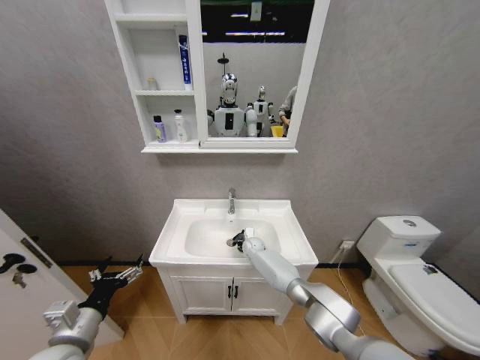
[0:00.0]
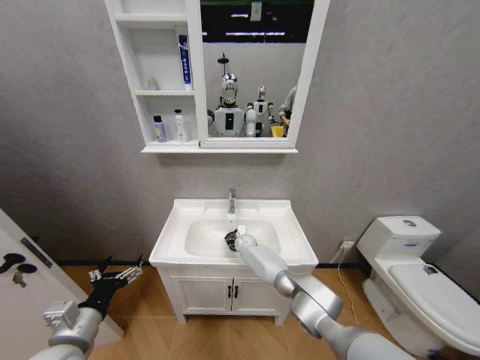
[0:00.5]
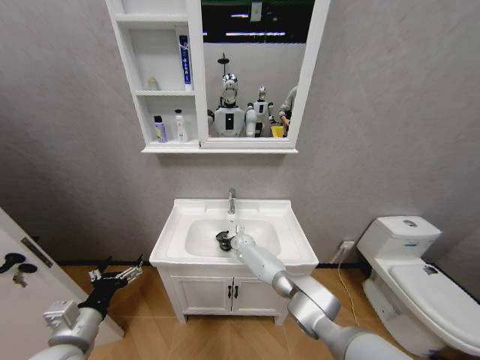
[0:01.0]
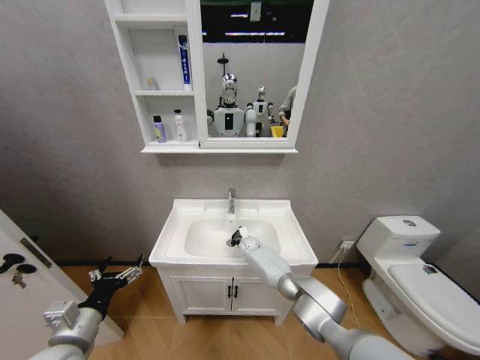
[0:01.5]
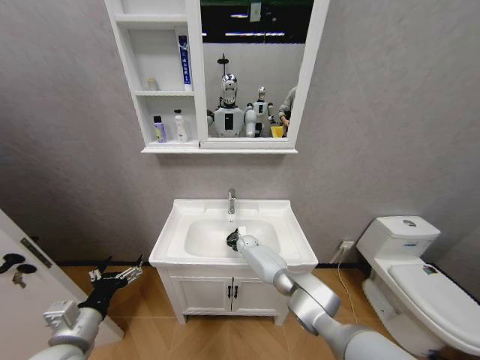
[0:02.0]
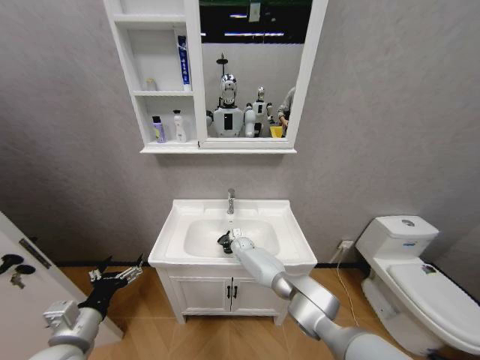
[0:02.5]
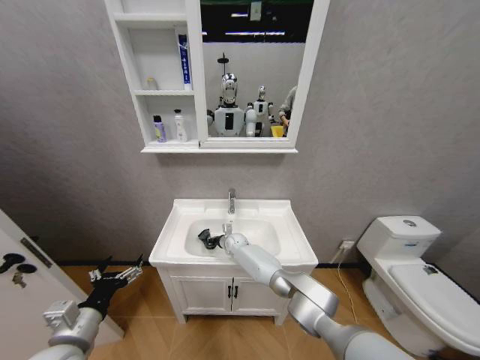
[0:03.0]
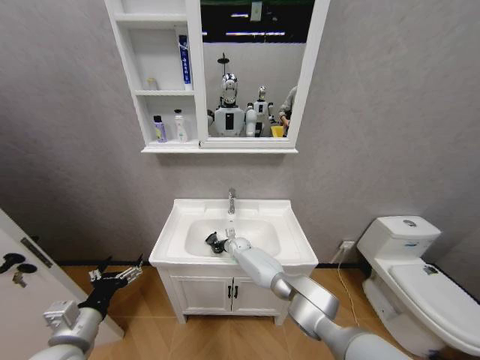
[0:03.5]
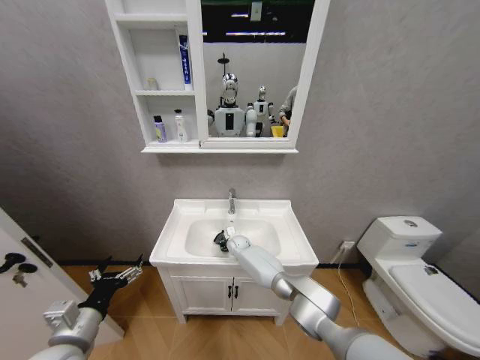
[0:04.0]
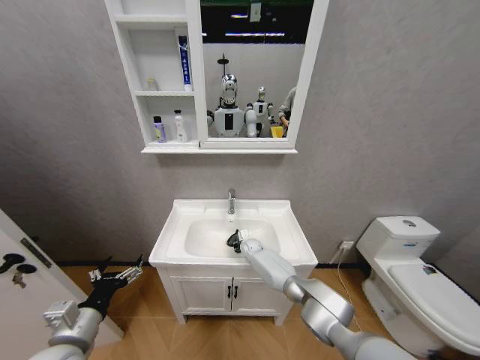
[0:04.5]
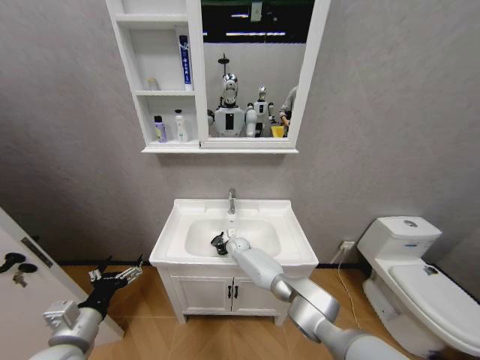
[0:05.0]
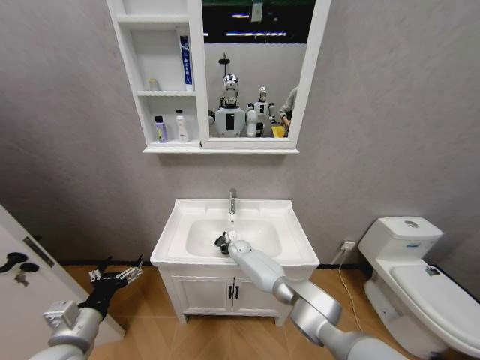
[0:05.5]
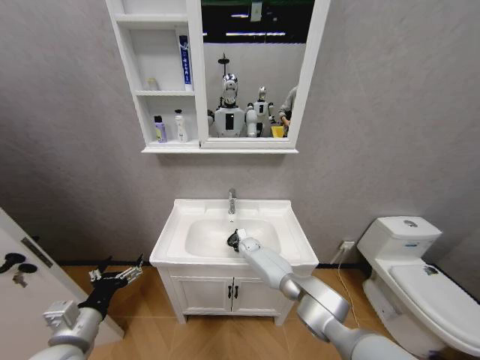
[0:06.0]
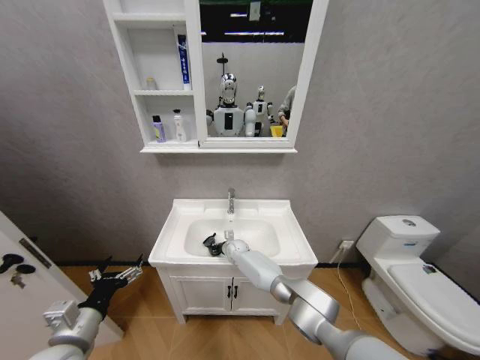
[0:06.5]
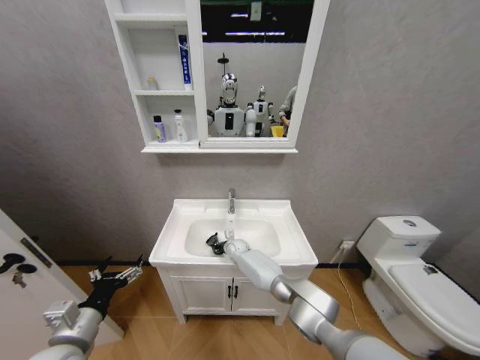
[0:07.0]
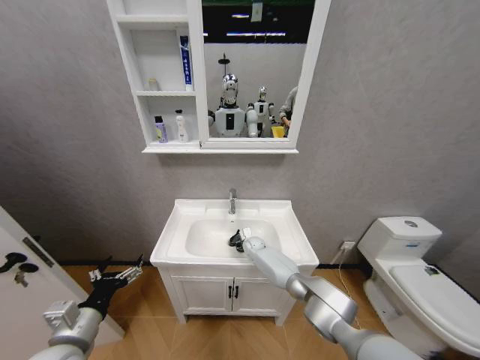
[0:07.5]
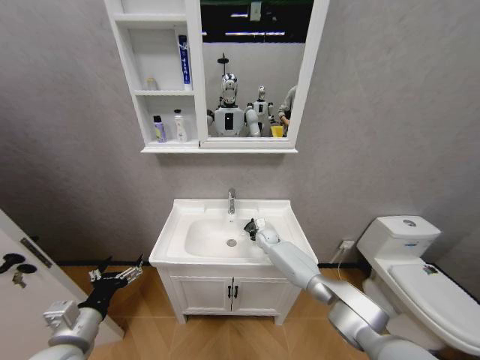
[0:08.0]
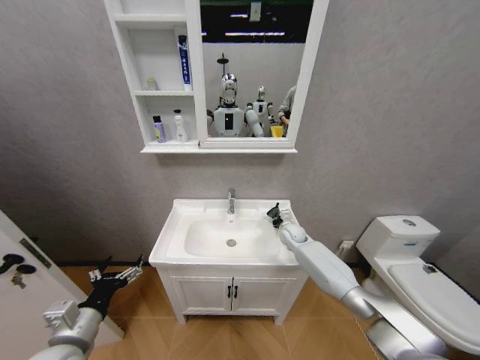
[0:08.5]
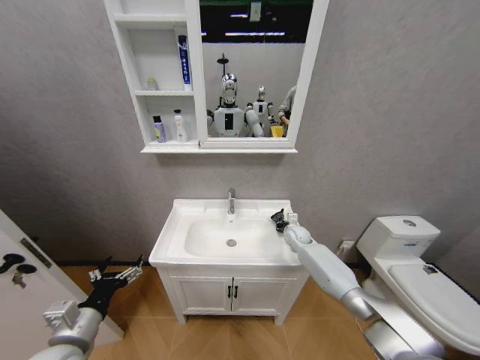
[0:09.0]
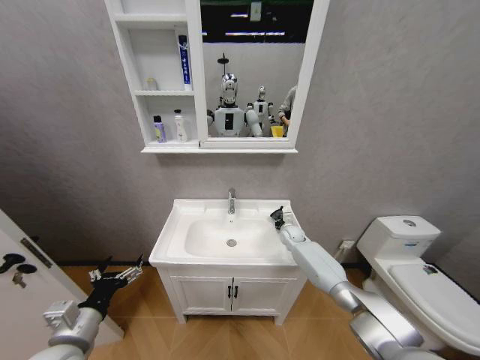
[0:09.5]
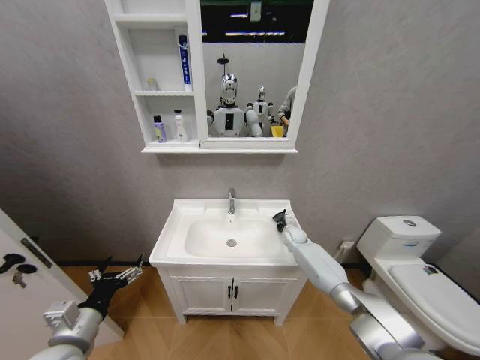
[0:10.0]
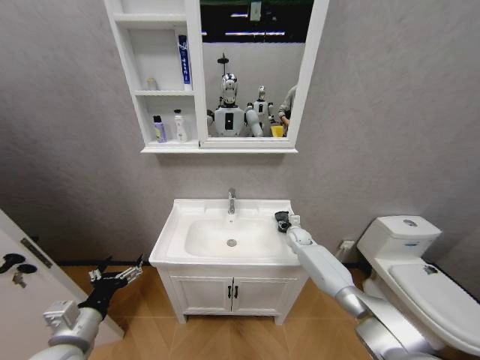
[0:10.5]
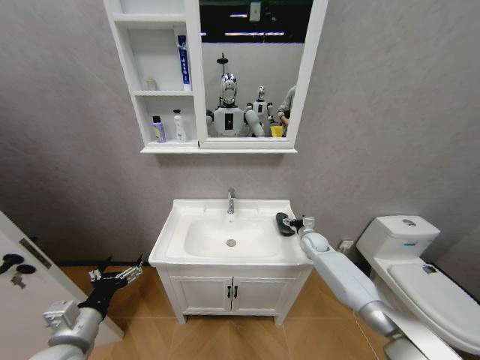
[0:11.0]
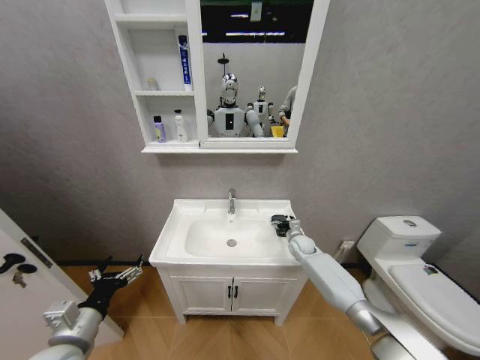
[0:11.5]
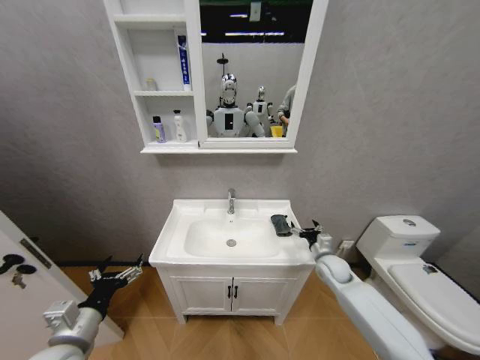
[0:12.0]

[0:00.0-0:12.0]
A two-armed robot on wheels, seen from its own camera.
Task of the whole recording: Move facial cleanser and shampoo from washbasin to cabinet, then wipe washbasin with towel.
0:00.0 to 0:02.0: The grippers move only a little.
0:04.0 to 0:06.0: The right gripper swings left and right, about 5 cm each way, with 2 reversals.
0:06.0 to 0:08.0: The right gripper shifts about 10 cm to the right.
0:08.0 to 0:10.0: The right gripper shifts approximately 10 cm to the right.
0:10.0 to 0:12.0: The right gripper is displaced backward and to the right by approximately 15 cm, and opens.

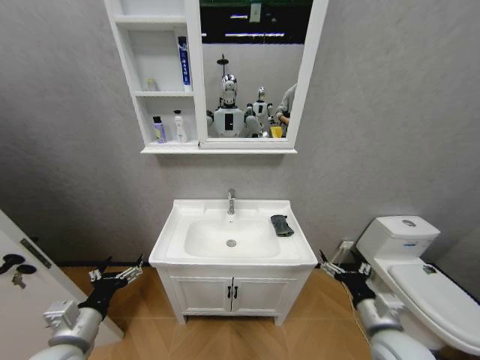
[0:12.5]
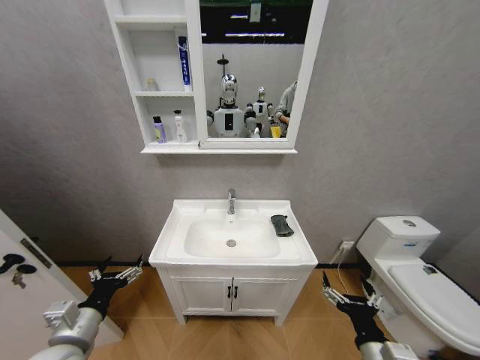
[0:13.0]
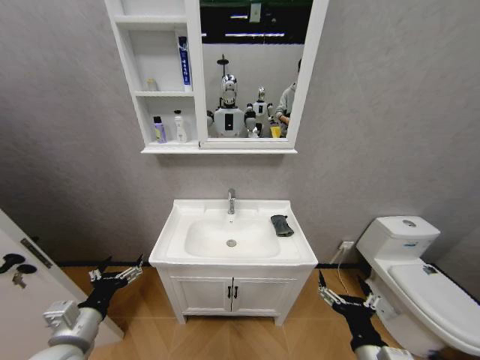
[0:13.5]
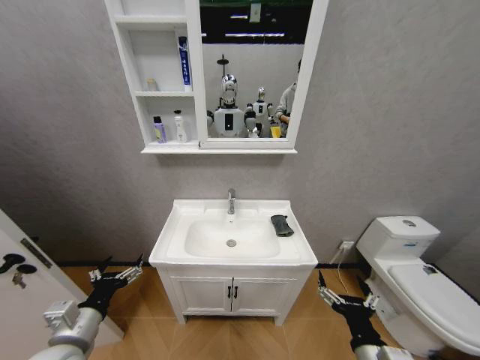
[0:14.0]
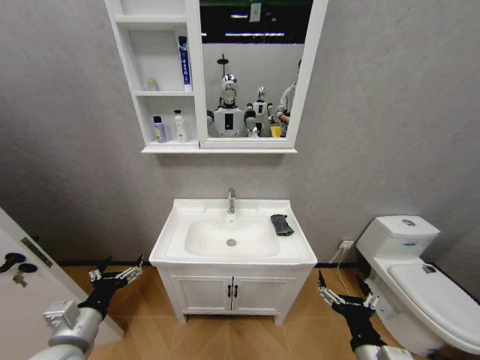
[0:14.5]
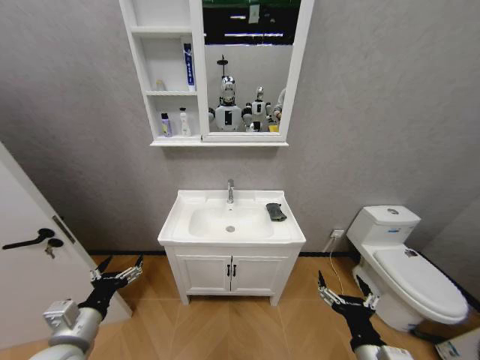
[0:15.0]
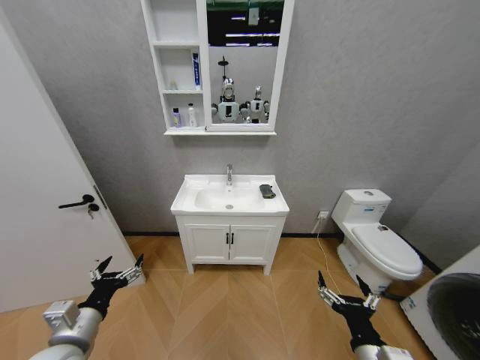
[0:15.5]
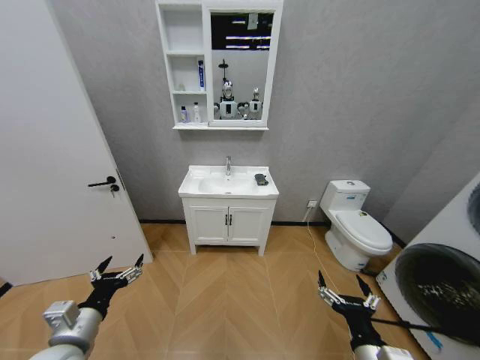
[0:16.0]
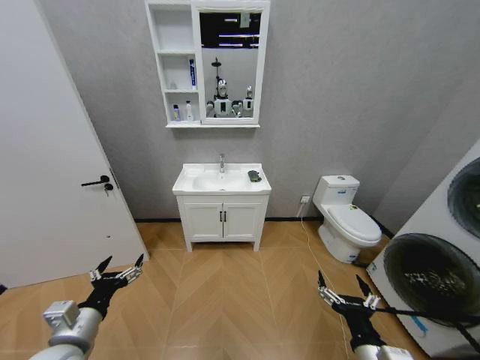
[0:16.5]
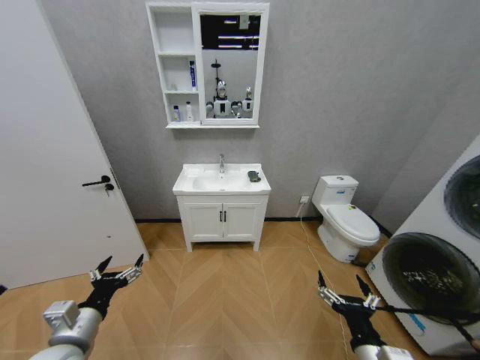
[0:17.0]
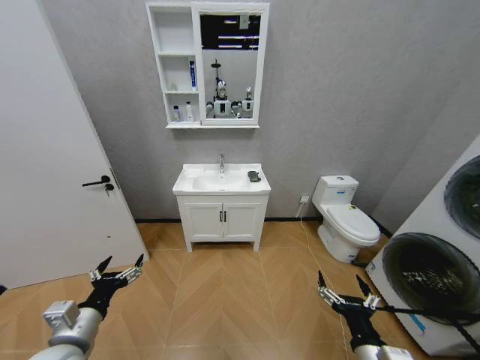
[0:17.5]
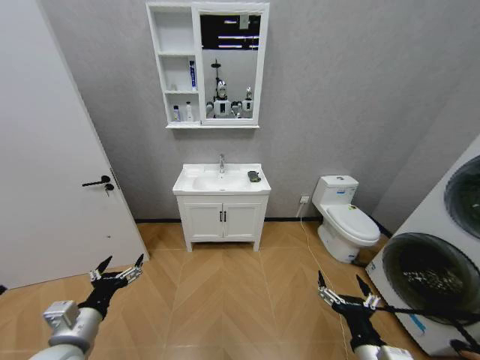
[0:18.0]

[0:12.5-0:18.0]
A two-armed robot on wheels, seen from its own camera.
Task of the whole recording: Move facial cleanser and shampoo from washbasin to cabinet, then wipe washbasin with towel.
0:12.5 to 0:14.5: The right gripper goes some 10 cm to the left and backward.
0:16.0 to 0:18.0: Both grippers stay about where they are.

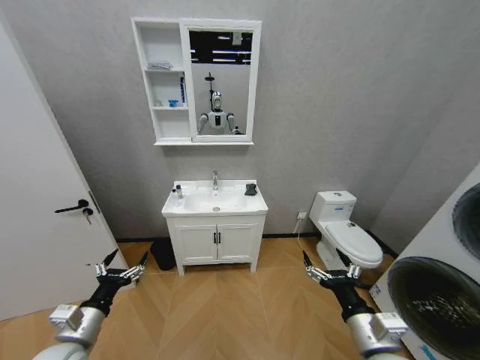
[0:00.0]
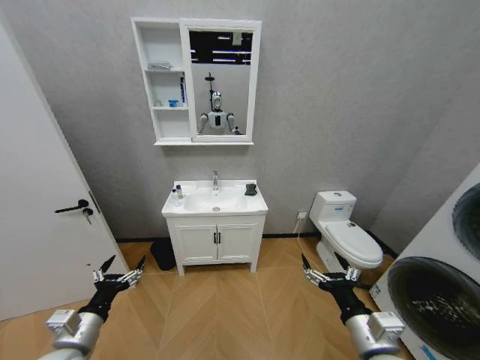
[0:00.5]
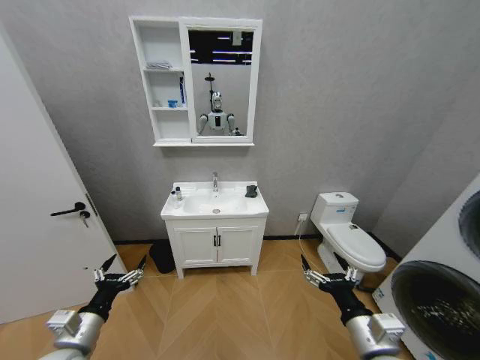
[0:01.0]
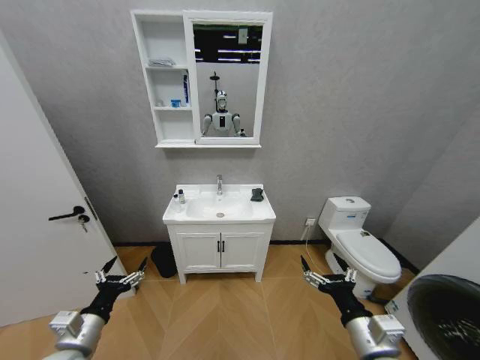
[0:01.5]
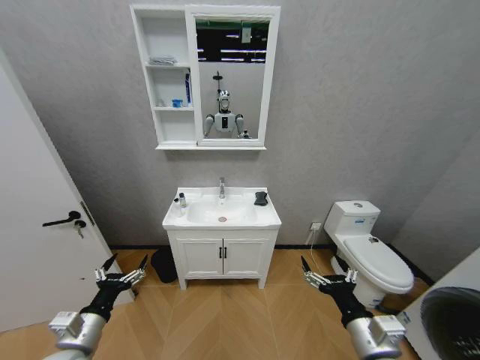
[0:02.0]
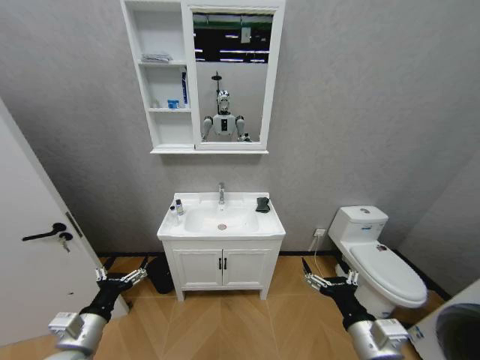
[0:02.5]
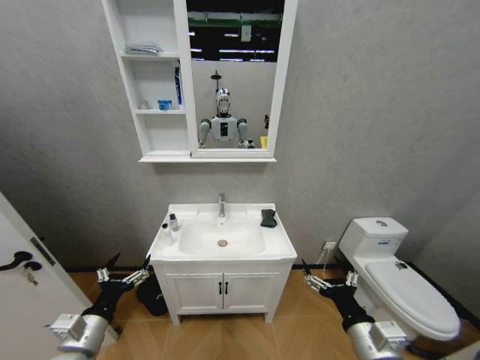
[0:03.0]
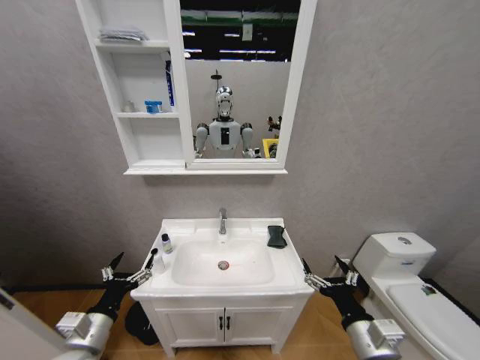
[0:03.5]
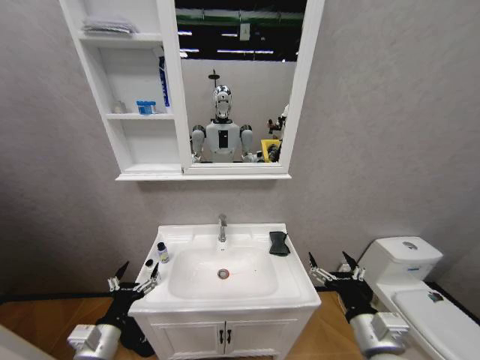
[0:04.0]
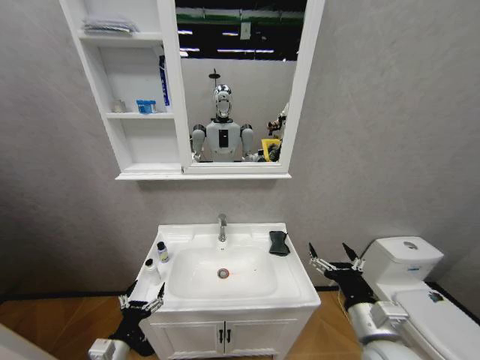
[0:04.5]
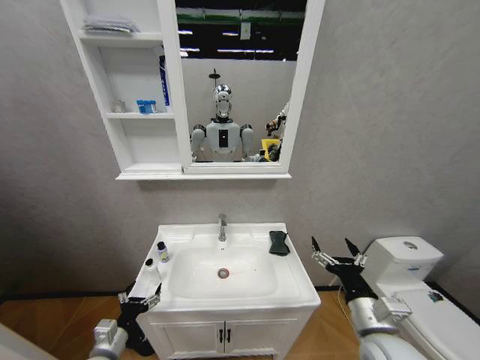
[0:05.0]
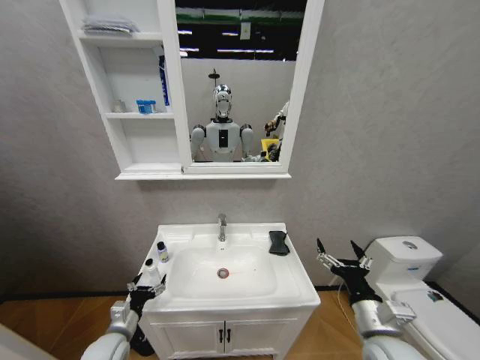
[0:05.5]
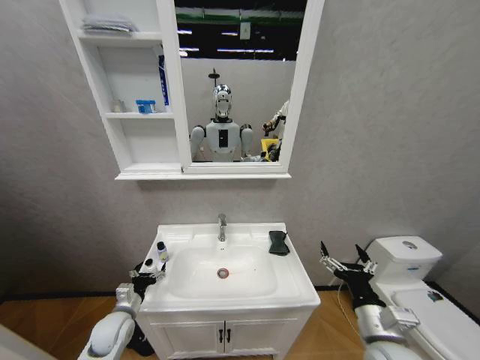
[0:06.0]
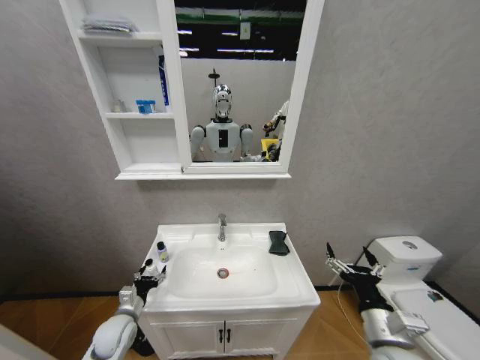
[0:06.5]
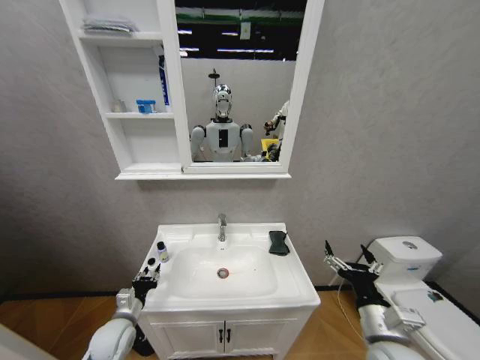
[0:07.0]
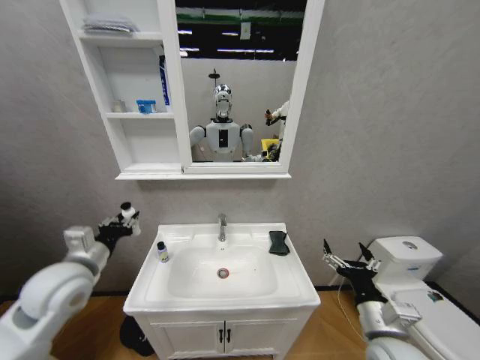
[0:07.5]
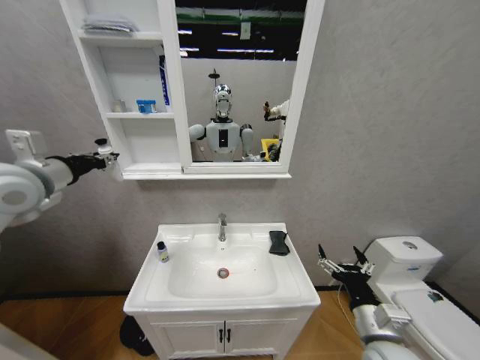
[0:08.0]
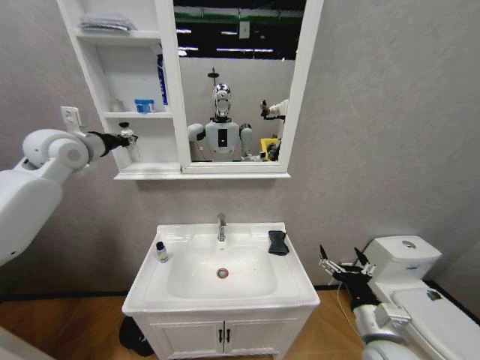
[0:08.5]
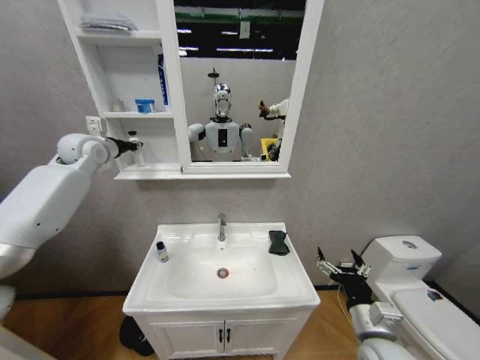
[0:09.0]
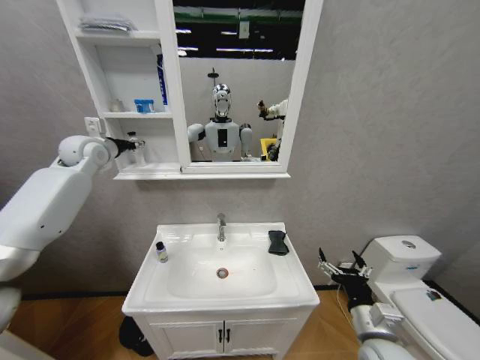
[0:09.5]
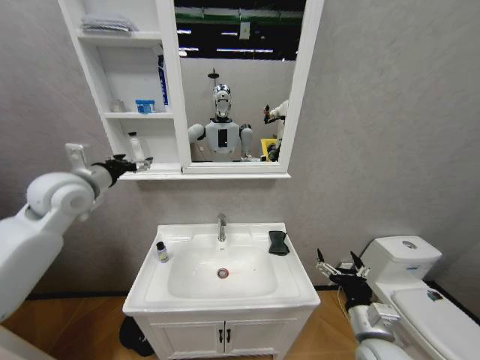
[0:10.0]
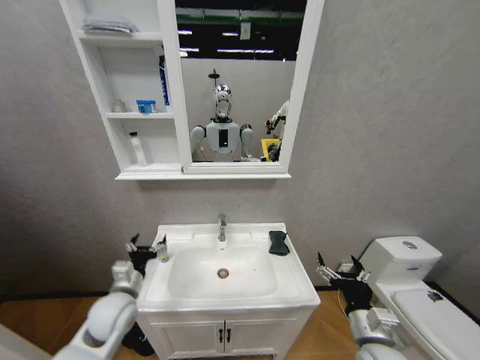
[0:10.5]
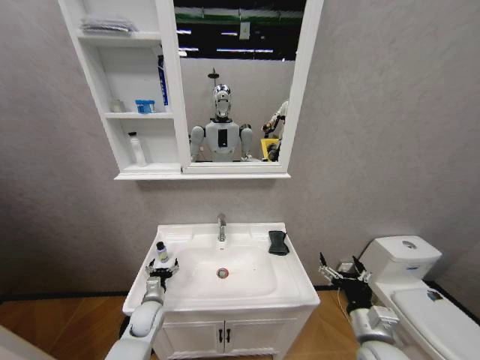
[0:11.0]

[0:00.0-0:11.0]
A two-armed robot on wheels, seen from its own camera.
Task of the whole recording: Move facial cleanser and shampoo from washbasin to cabinet, then wipe washbasin with towel.
0:03.5 to 0:05.5: The left gripper is displaced downward and forward by roughly 15 cm.
0:05.5 to 0:07.5: The left gripper goes some 25 cm upward, and closes.
0:07.5 to 0:09.0: The left gripper goes roughly 30 cm forward and upward.
0:09.0 to 0:11.0: The left gripper heads downward, covering about 50 cm, and opens.
